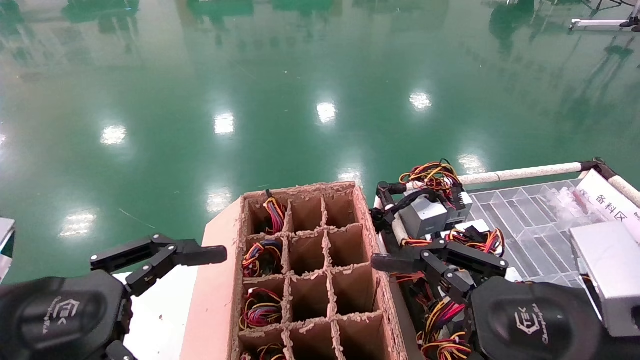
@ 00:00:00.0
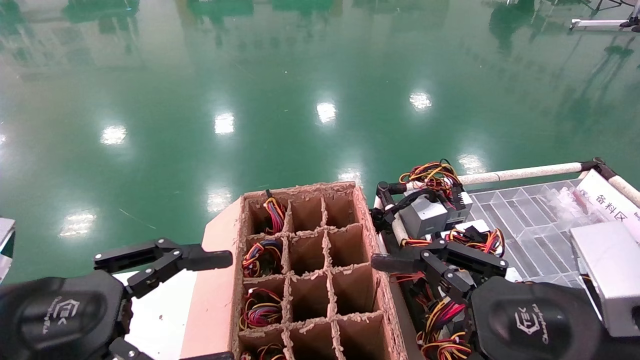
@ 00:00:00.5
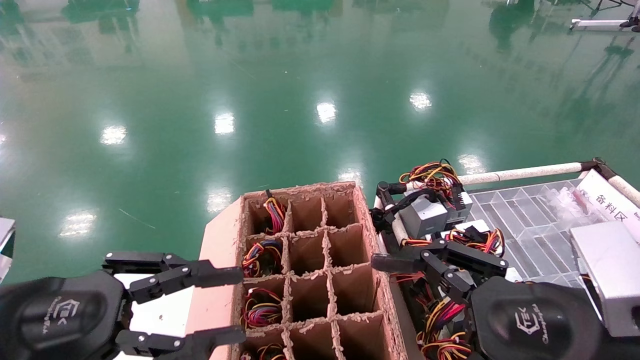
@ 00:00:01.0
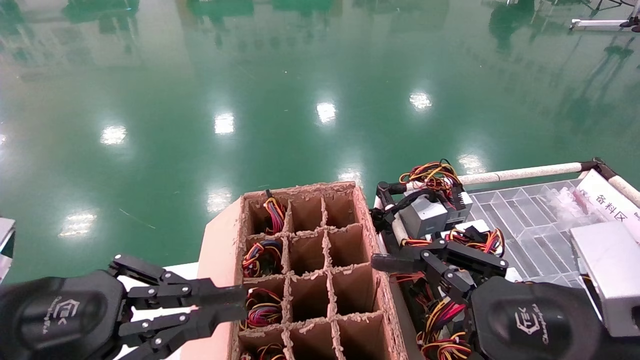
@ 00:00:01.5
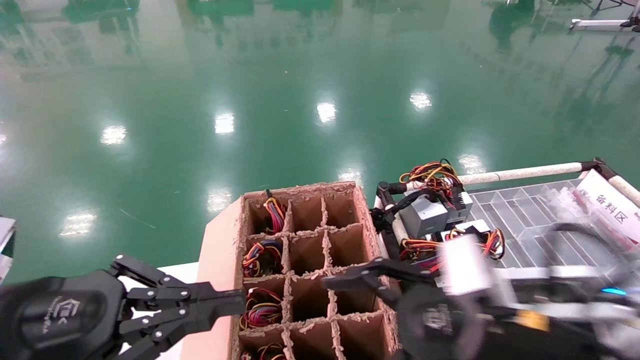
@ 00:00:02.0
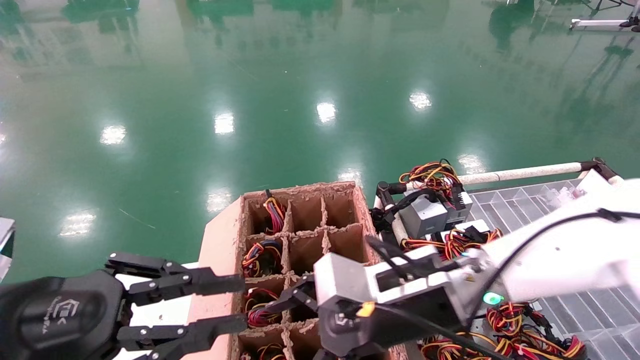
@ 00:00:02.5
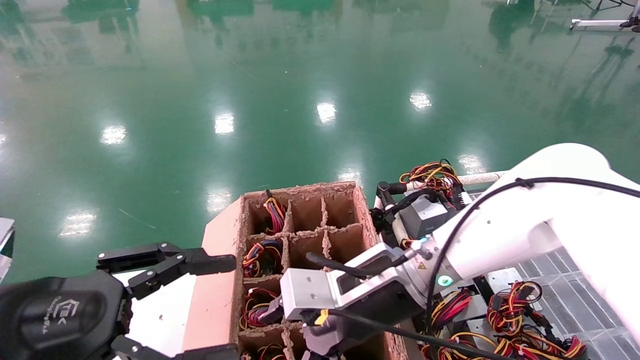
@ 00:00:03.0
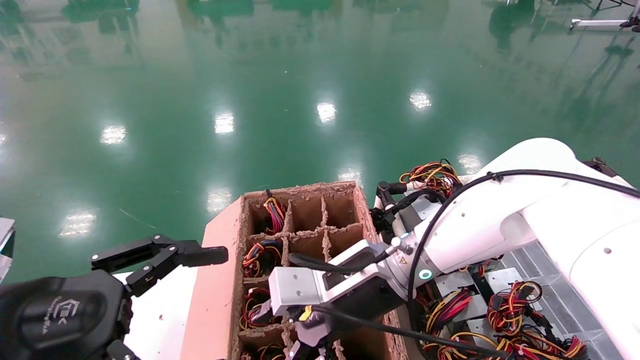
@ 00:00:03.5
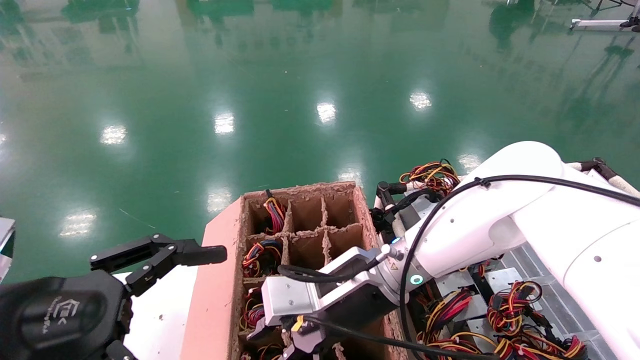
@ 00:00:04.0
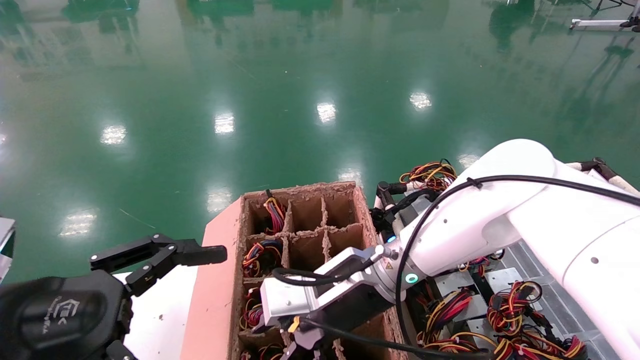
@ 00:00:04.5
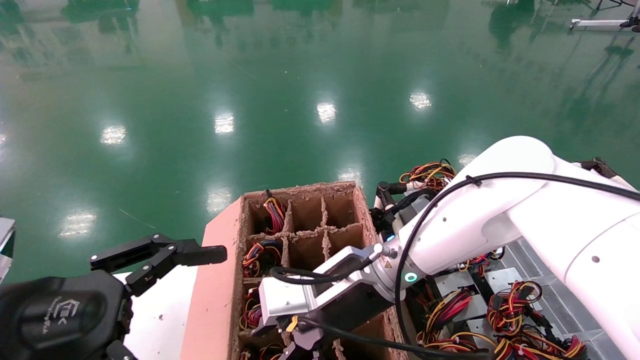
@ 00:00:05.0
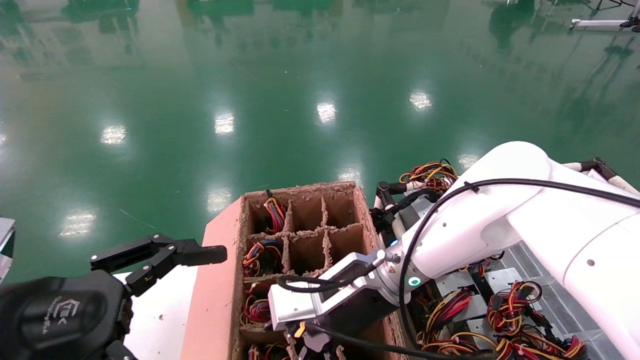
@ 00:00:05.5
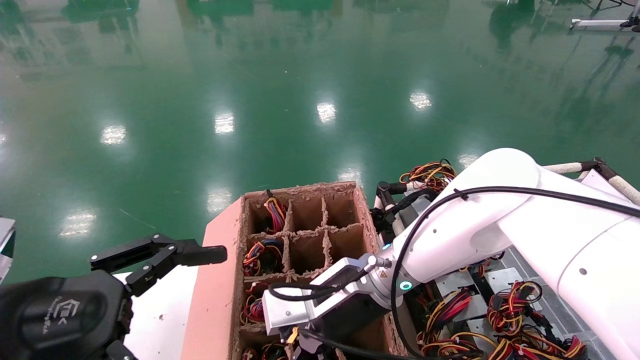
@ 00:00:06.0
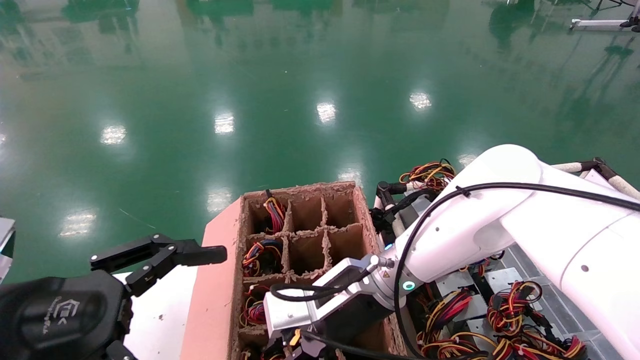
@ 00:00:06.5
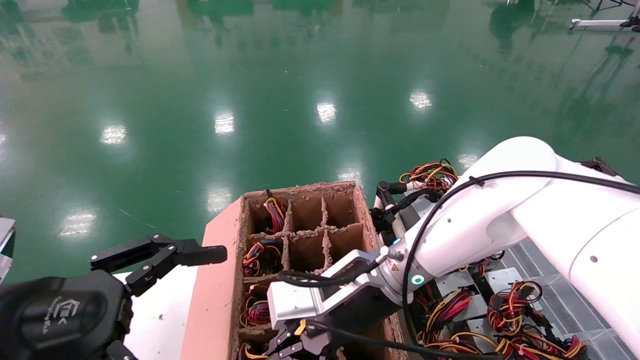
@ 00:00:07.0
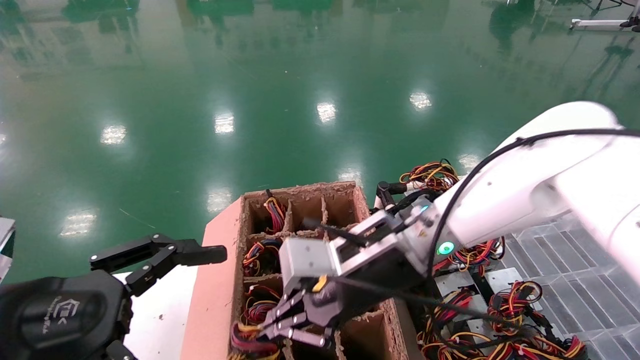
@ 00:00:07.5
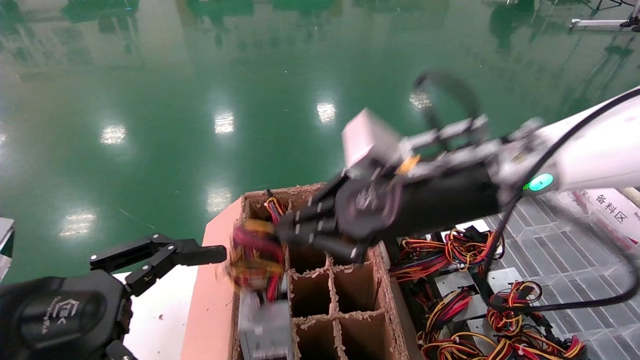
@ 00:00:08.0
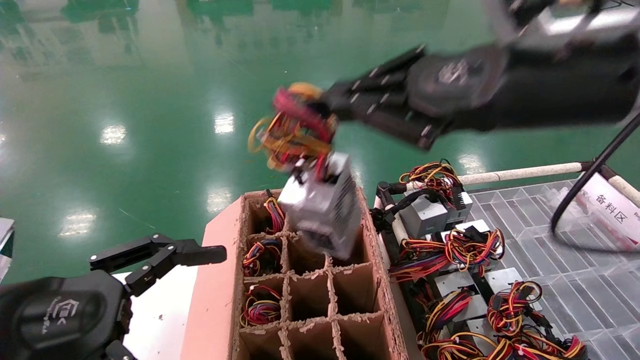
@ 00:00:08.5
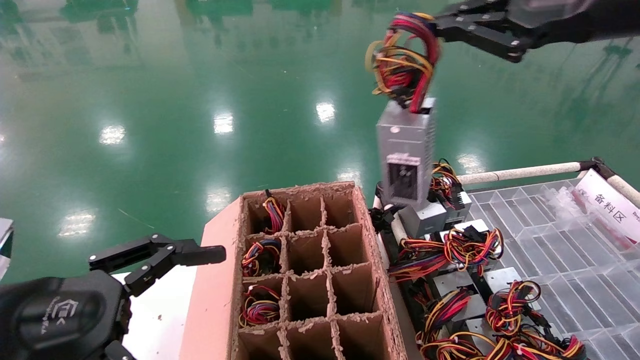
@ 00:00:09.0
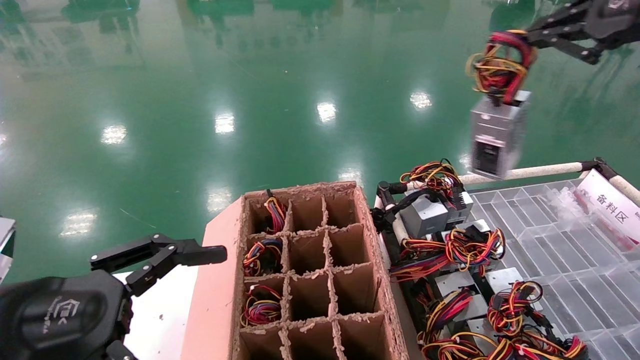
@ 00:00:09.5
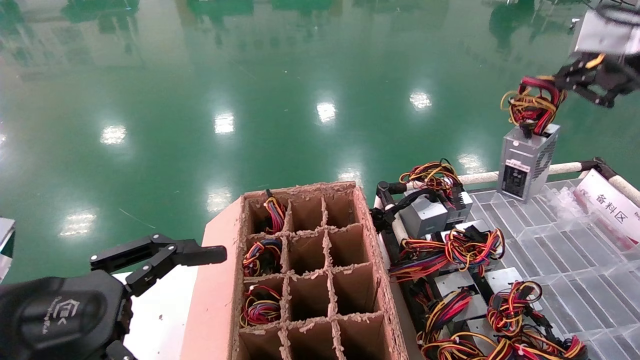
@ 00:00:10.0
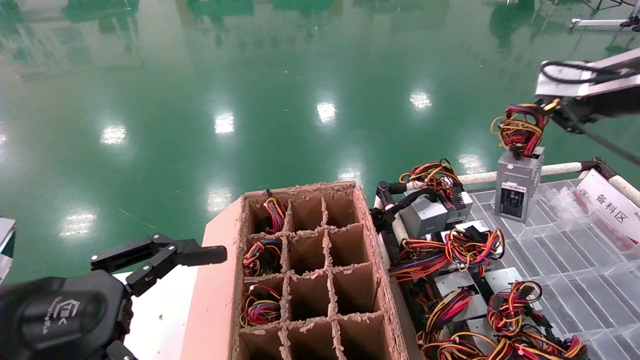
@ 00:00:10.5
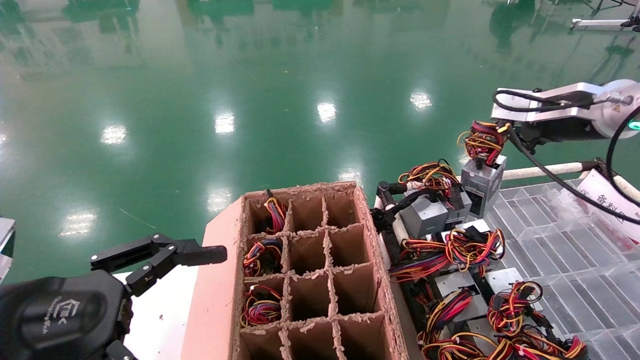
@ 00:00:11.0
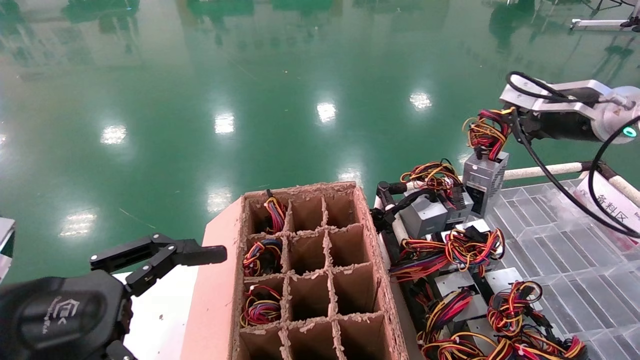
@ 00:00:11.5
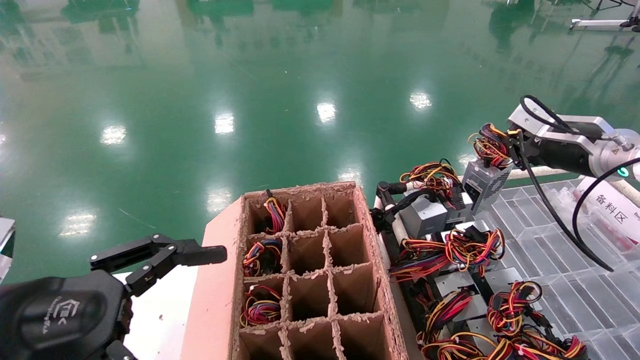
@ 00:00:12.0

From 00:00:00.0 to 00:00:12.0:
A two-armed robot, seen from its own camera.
Step, from 00:00:02.0 to 00:00:07.0: Grab and lift the power supply from the large box.
From 00:00:00.0 to 00:00:02.0: The right gripper heads forward and to the left, covering some 10 cm, while the left gripper closes up.
From 00:00:02.0 to 00:00:04.0: The right gripper goes approximately 15 cm to the left and forward, and closes its fingers. Meanwhile the left gripper opens up.
From 00:00:04.0 to 00:00:06.0: The grippers stay close to where they were, moving slightly.
From 00:00:06.0 to 00:00:08.0: The right gripper heads upward, to the right and backward, covering roughly 20 cm, and closes.
From 00:00:08.0 to 00:00:10.0: The right gripper heads to the right and upward, covering approximately 30 cm.
From 00:00:10.0 to 00:00:12.0: The right gripper goes roughly 20 cm downward and forward.

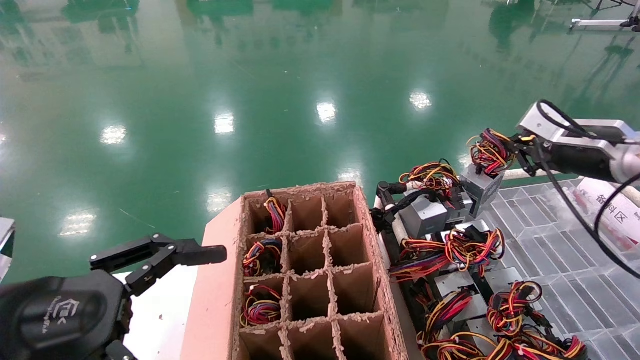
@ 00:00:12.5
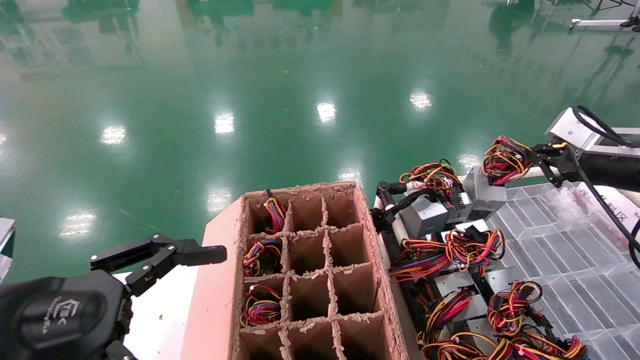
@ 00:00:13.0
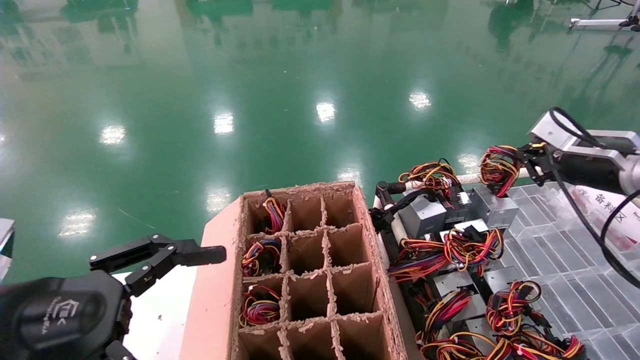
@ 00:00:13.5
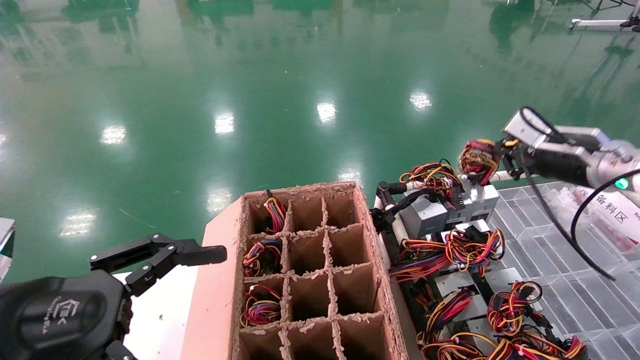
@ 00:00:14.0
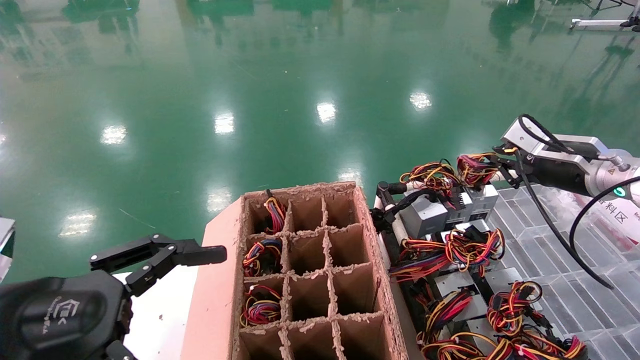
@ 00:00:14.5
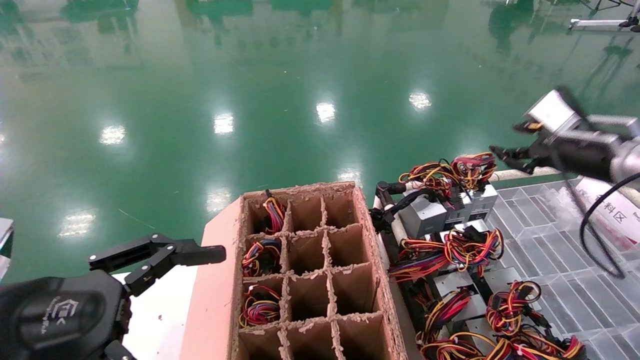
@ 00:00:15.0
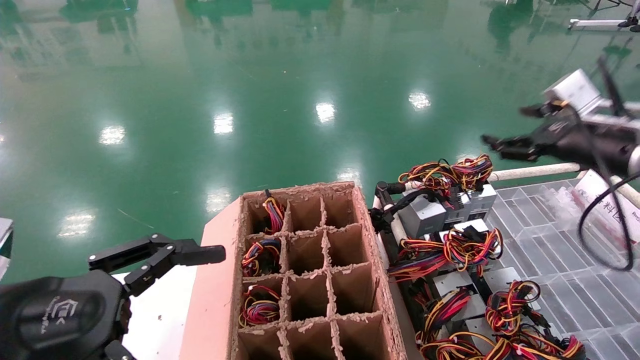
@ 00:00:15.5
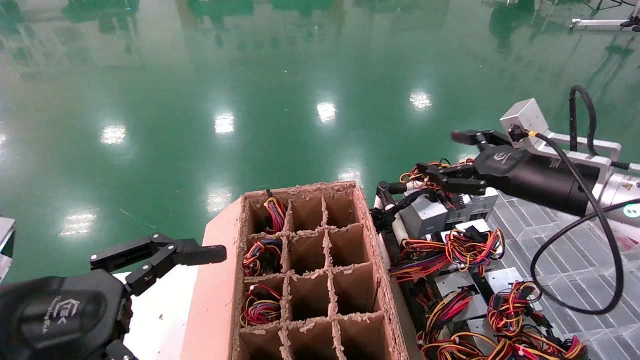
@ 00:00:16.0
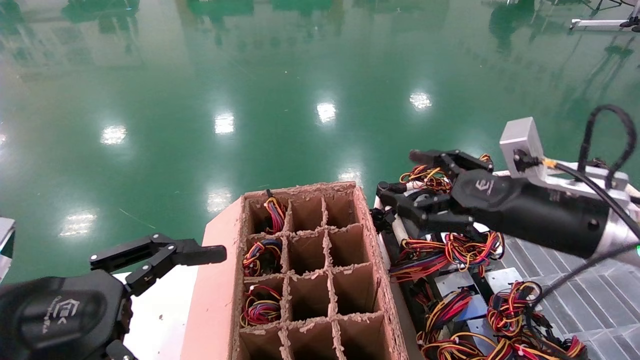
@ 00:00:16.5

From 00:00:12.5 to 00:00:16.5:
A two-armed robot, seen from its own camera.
From 00:00:12.5 to 00:00:14.5: The grippers make only small movements.
From 00:00:14.5 to 00:00:16.5: The right gripper is displaced backward and to the left by some 15 cm, and opens up.
